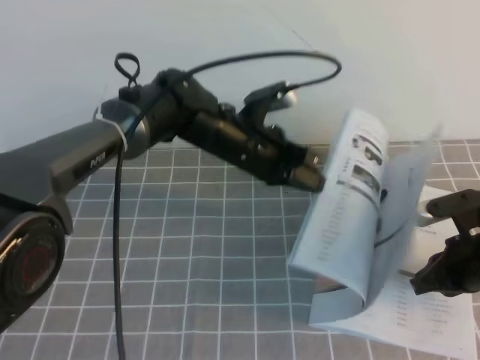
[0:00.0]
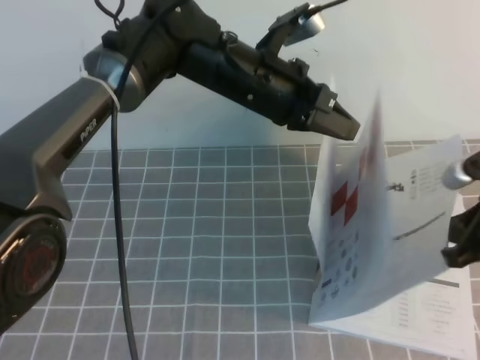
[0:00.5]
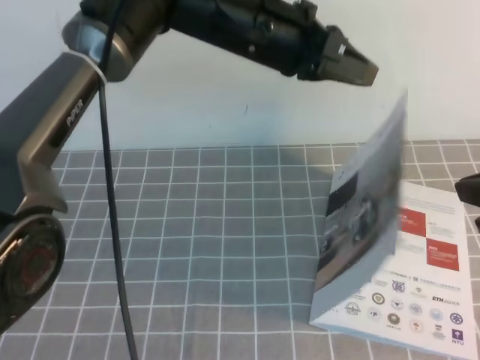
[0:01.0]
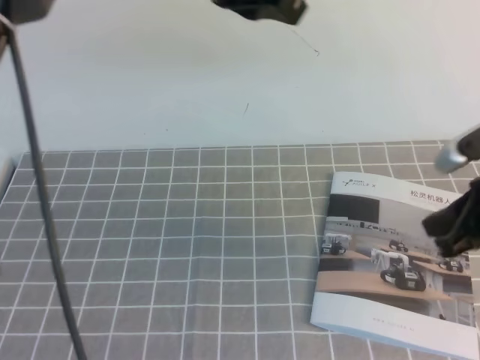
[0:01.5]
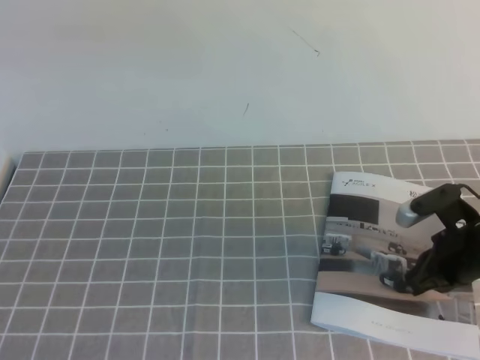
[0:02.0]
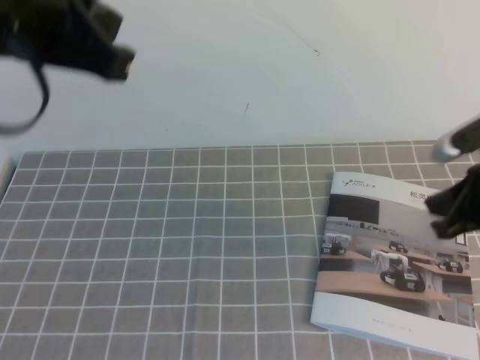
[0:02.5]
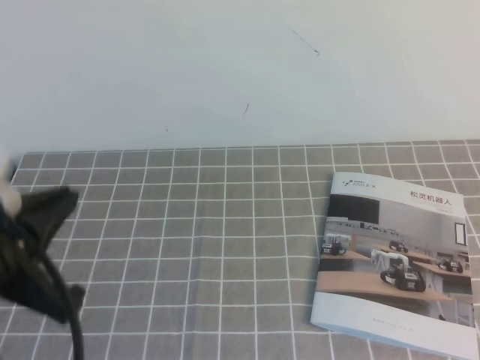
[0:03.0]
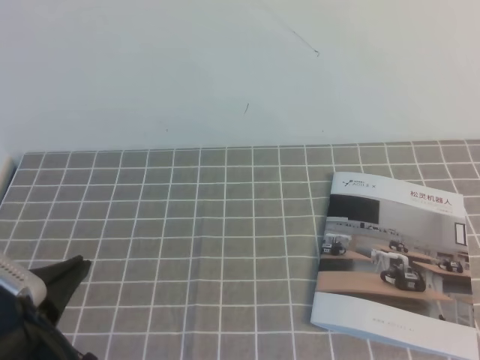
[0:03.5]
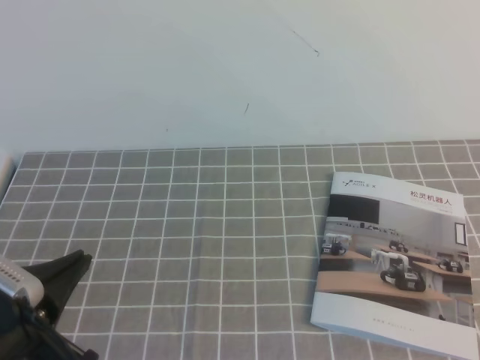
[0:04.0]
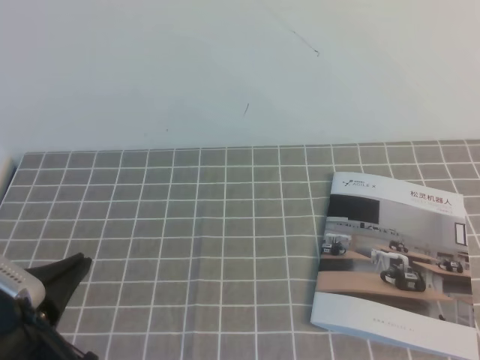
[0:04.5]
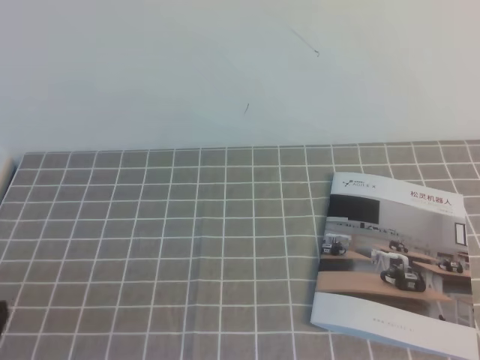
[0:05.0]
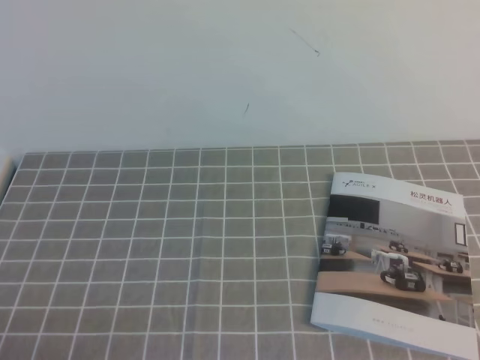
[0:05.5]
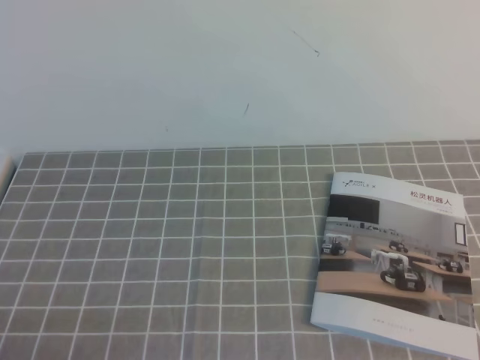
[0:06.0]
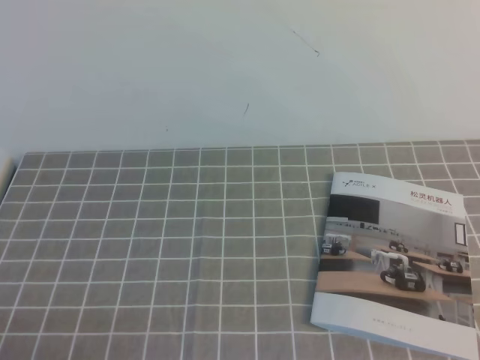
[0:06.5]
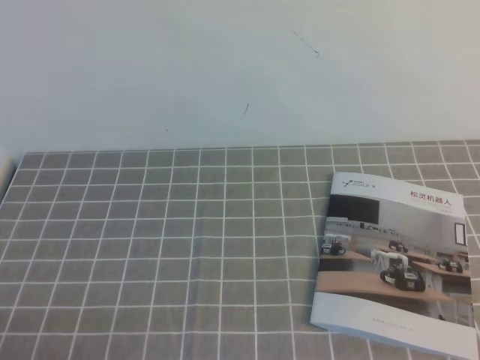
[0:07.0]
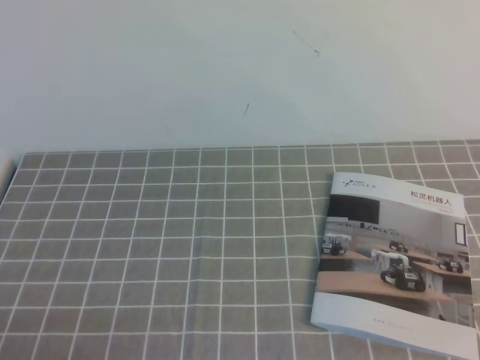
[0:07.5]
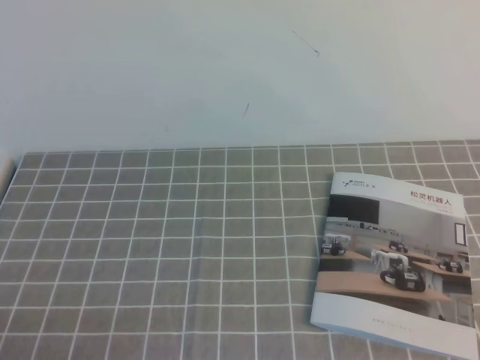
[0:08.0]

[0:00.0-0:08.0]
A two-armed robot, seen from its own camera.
Task of the whole recording: on the grey tablecloth, hold the book with one hand and close it with the other.
Step, 0:00.0 to 0:08.0: Close the open book.
0:00.0 to 0:02.0: The left gripper moves upward and backward, roughly 30 cm. The right gripper reaches approximately 20 cm upward, then returns.
0:02.0 to 0:04.0: The left gripper travels downward and backward by some 30 cm, while the right gripper heads backward and upward, covering roughly 30 cm.
0:04.0 to 0:06.0: The left gripper heads downward, backward and to the left, covering roughly 15 cm.
